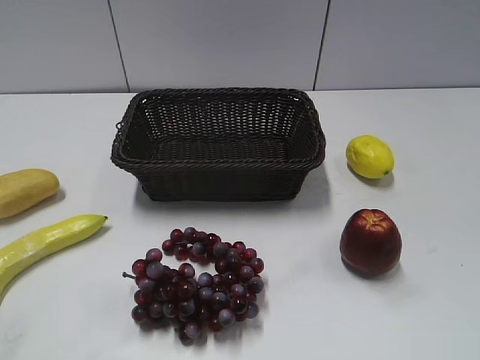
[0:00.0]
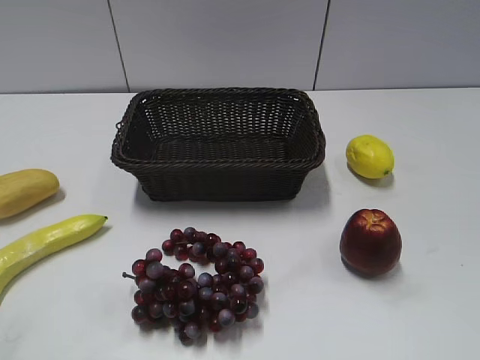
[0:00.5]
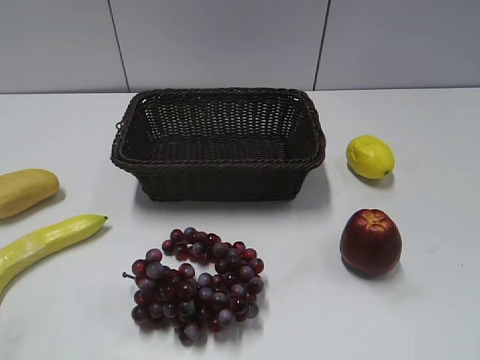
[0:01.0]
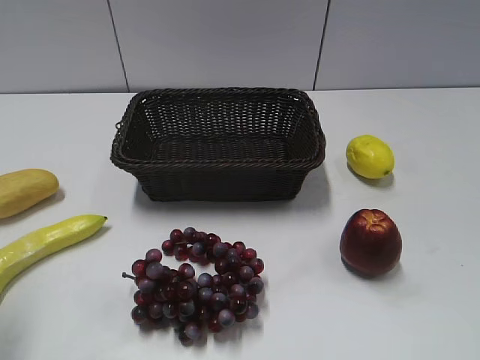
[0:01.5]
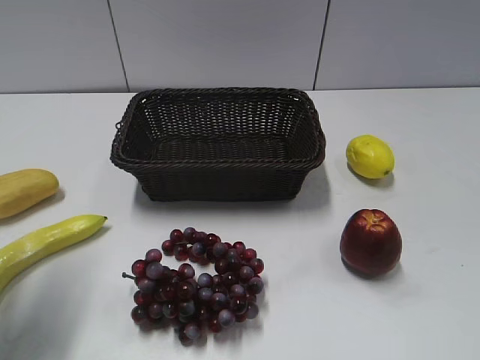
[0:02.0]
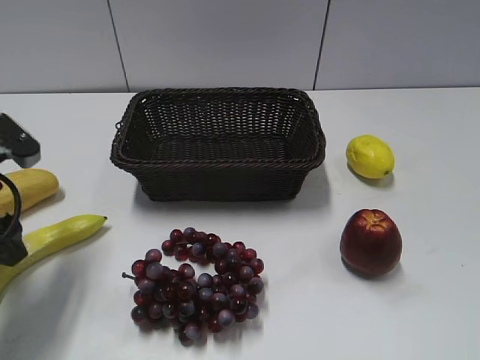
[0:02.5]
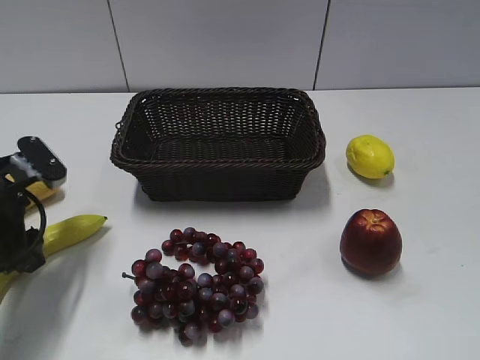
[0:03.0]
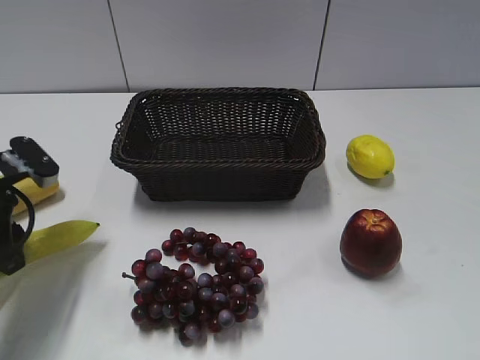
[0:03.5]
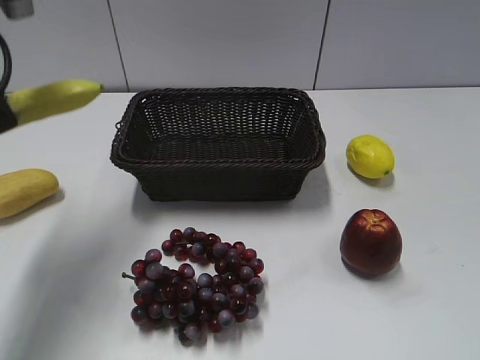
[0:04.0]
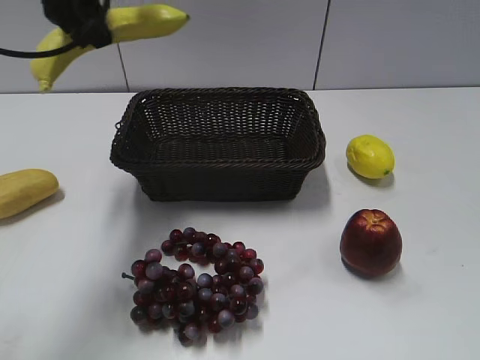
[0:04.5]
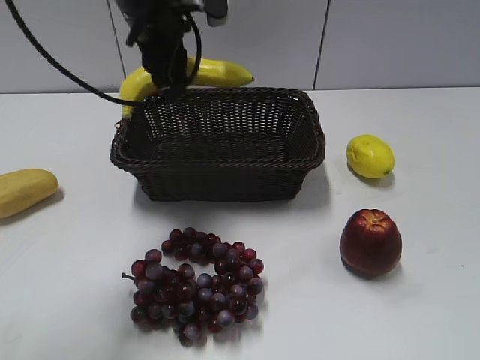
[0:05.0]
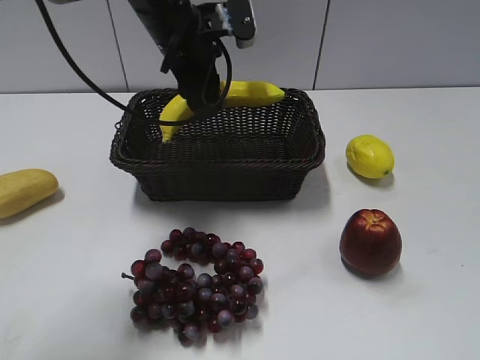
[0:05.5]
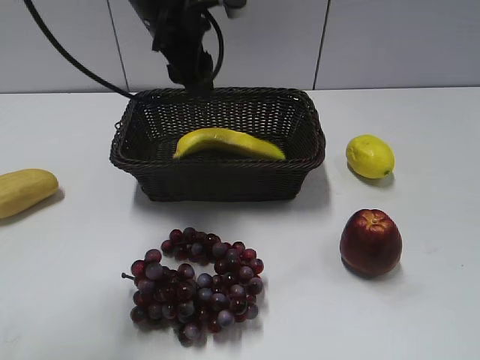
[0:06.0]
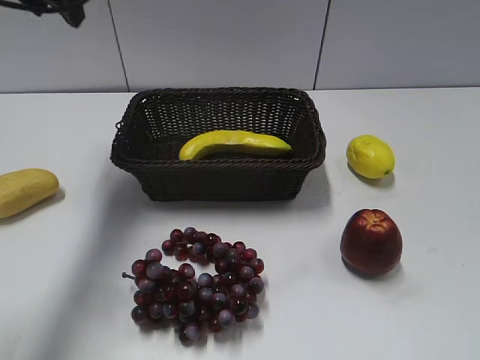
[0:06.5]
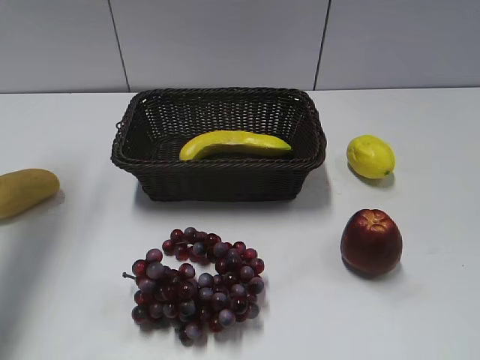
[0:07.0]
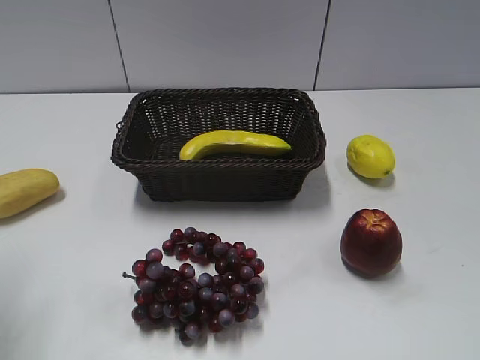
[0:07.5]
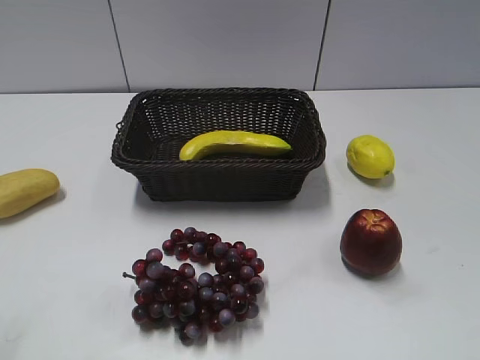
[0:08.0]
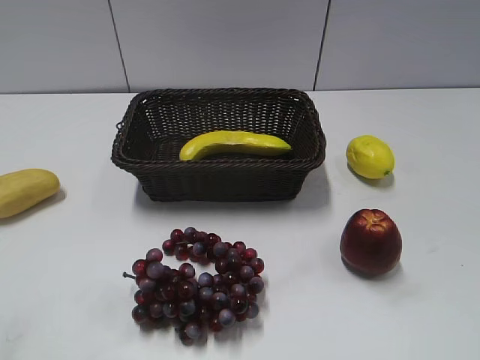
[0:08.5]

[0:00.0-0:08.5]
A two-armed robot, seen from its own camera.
Step, 0:02.5 to 0:03.0: Grasp the banana with left gripper.
Step, 0:03.5 to 0:05.5: Place the banana in the basket with left gripper.
0:02.0 to 0:04.0: The left gripper moves forward and upward, approximately 10 cm, and closes its fingers.
0:04.0 to 0:06.5: The left gripper is displaced forward by some 10 cm, reaches approximately 20 cm to the right, then returns, and opens up.
0:06.5 to 0:08.5: The left gripper heads backward, covering some 40 cm.
